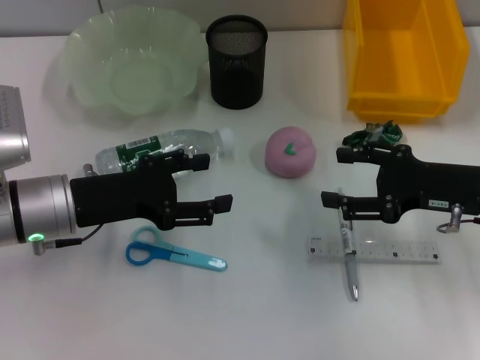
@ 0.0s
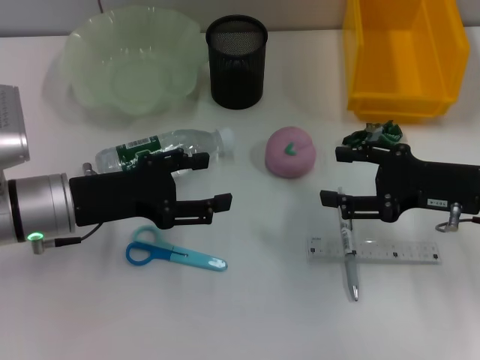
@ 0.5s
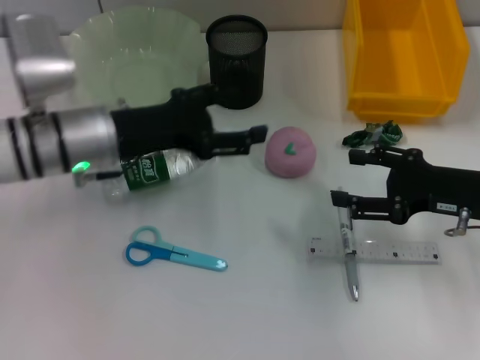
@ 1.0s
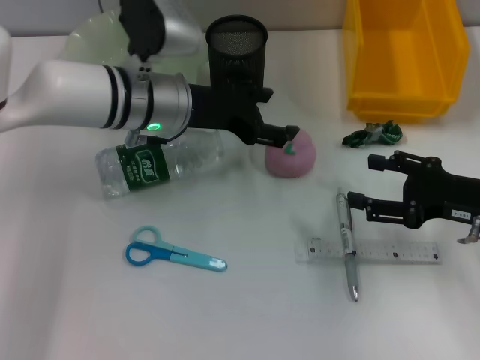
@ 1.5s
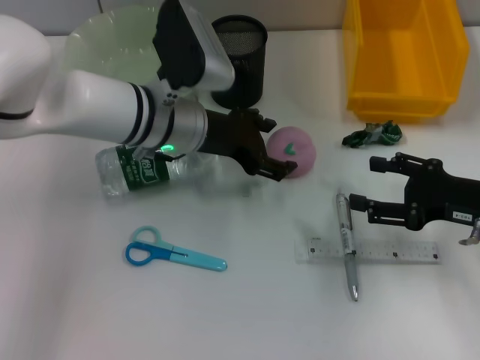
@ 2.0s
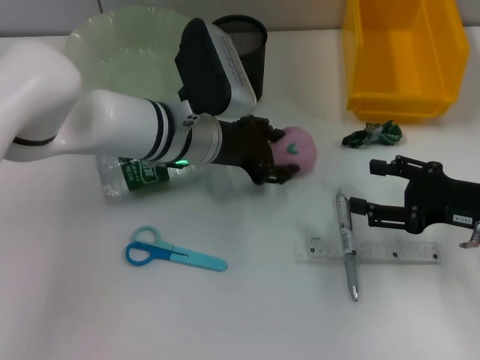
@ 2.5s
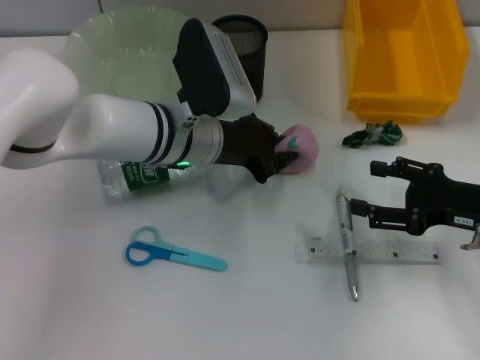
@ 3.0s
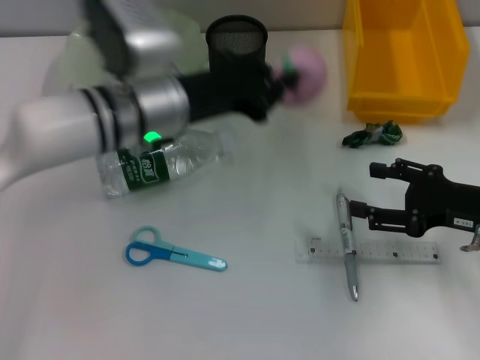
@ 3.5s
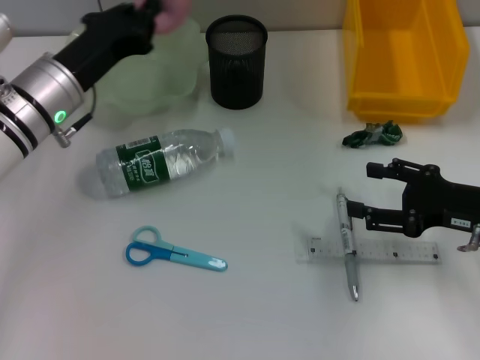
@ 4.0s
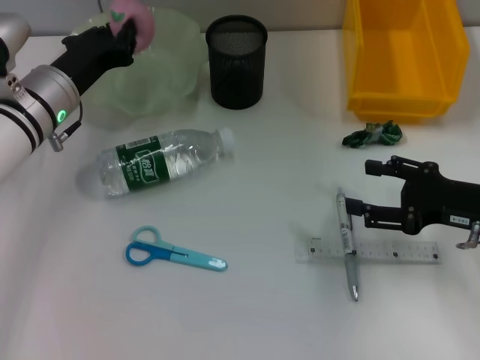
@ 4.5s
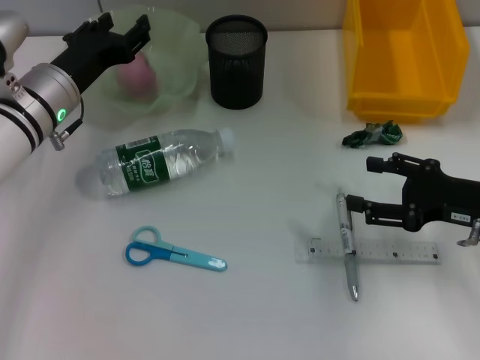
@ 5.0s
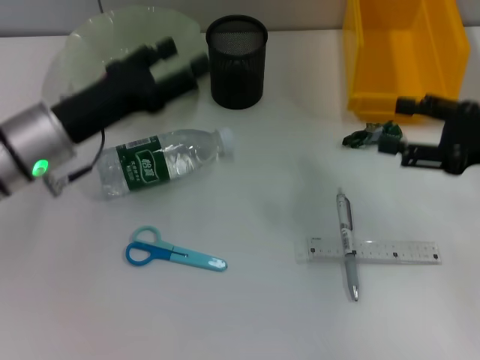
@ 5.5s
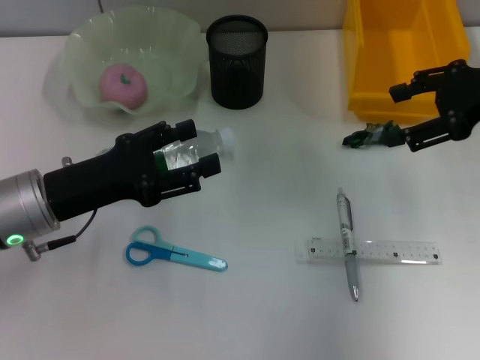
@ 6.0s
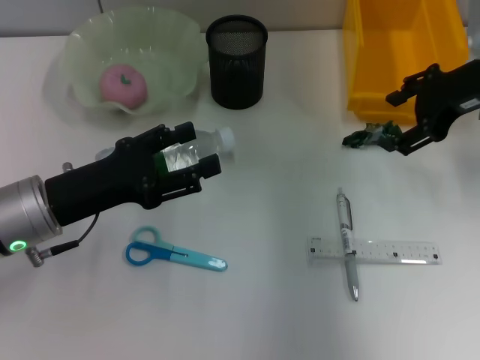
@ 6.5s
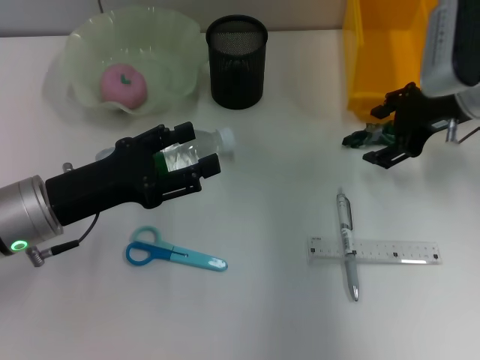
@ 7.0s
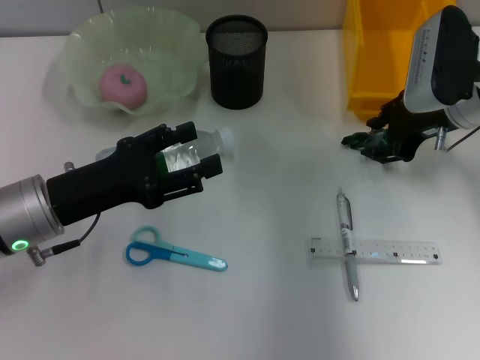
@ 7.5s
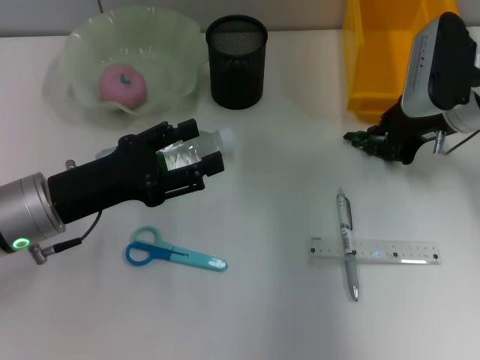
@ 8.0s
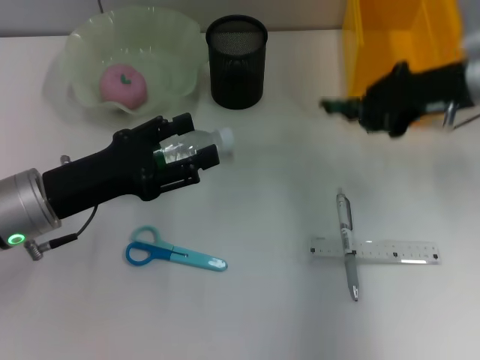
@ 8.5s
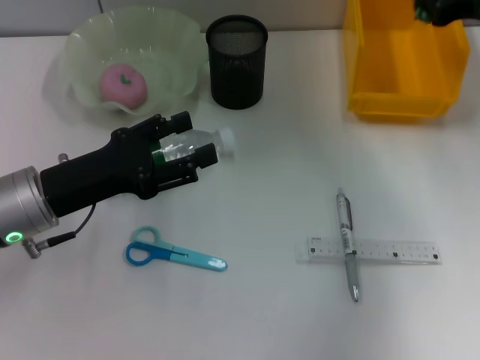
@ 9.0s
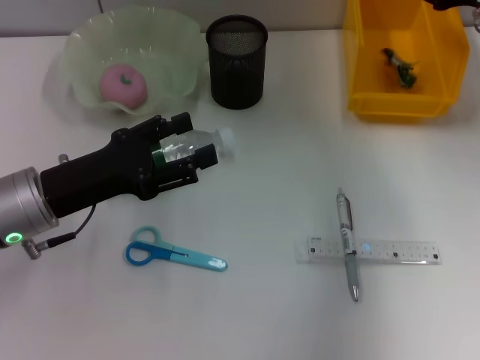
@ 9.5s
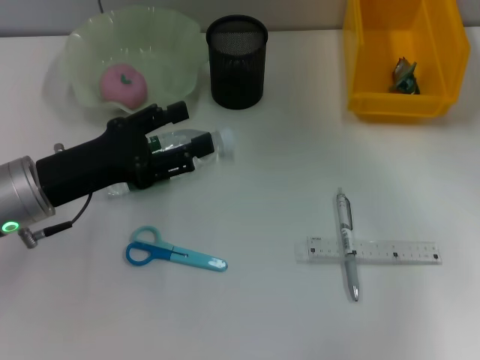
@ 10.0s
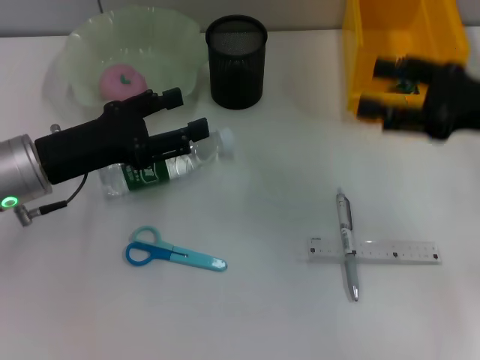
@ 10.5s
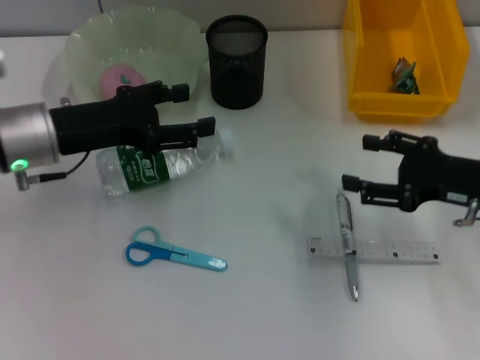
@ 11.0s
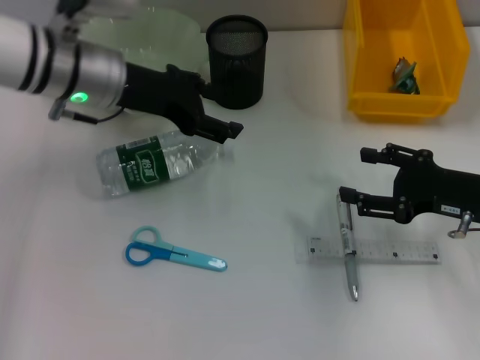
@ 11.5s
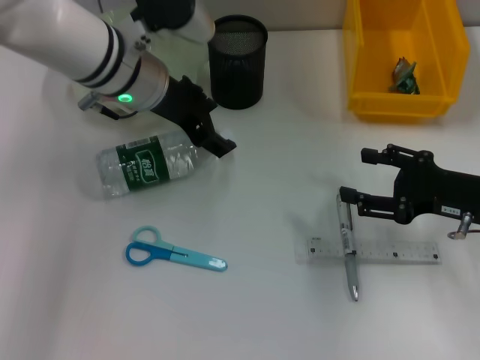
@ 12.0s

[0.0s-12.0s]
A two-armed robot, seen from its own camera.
Step, 0.0s to 3.0s: Grab the peach with the left hand.
Step, 3.5s to 5.0s: Place the peach into the fruit bowl with the left hand.
Step, 5.5s to 8.0s: Grab the plastic with the right hand.
Step, 8.5s to 9.0s: Place the plastic into the trash can with the right hand.
0.0s to 2.0s: The left gripper heads to the right and forward, covering about 15 cm.
2.0s to 4.0s: The left gripper travels to the left by approximately 10 cm, and closes its fingers.
4.0s to 6.0s: The right gripper goes roughly 15 cm upward and forward. Meanwhile the left gripper shifts approximately 10 cm backward, and opens its fingers.
6.0s to 8.0s: The right gripper shifts some 10 cm downward and to the left, and closes.
8.0s to 10.0s: The right gripper is displaced upward and to the right by approximately 10 cm, and opens up.
10.0s to 12.0s: The right gripper is displaced downward and backward by about 15 cm. The left gripper travels forward, to the right and upward by roughly 20 cm.

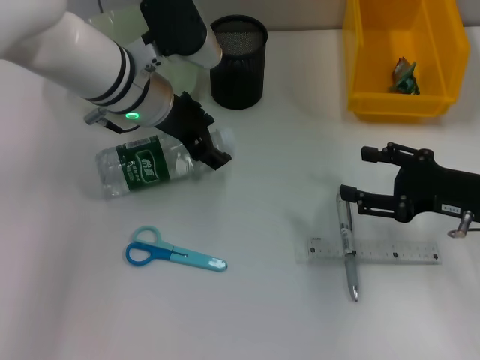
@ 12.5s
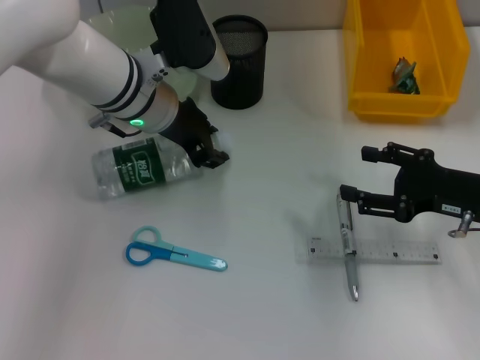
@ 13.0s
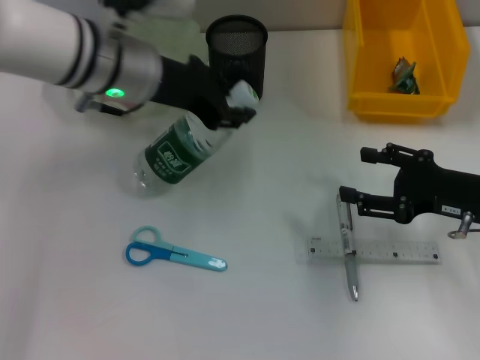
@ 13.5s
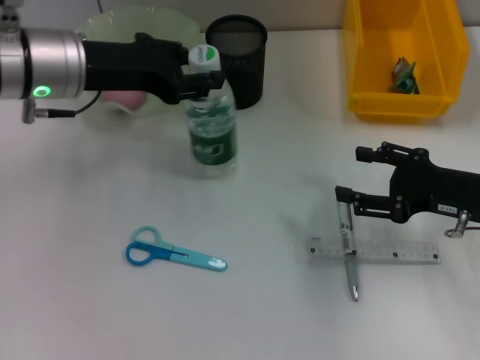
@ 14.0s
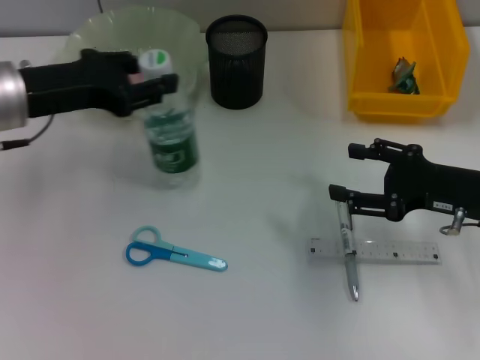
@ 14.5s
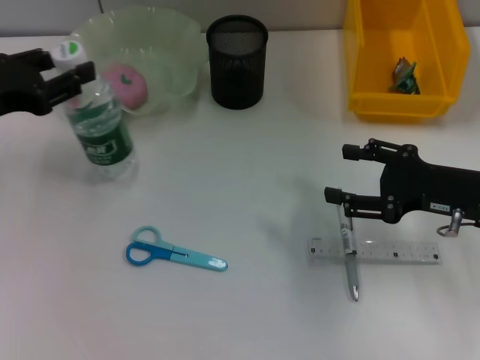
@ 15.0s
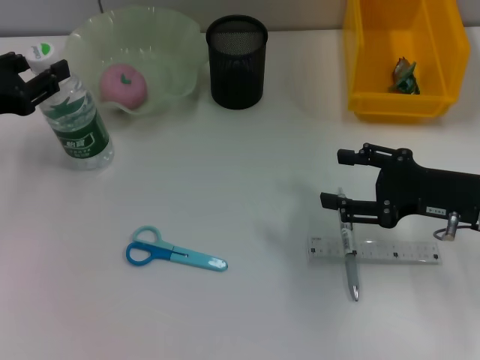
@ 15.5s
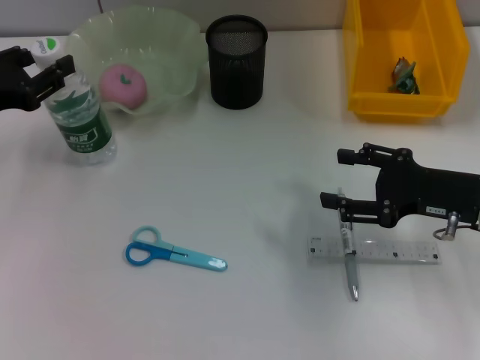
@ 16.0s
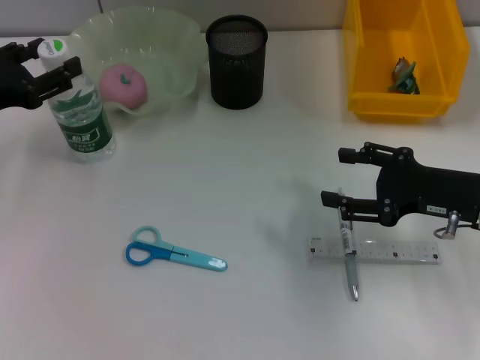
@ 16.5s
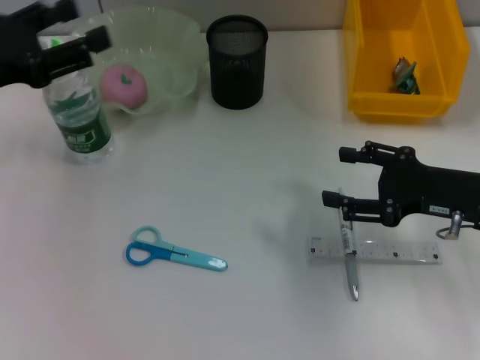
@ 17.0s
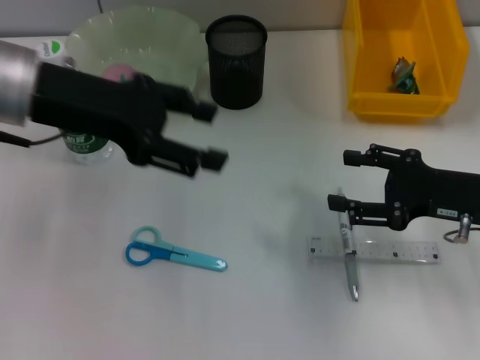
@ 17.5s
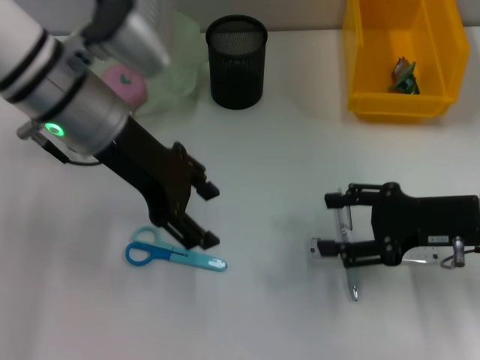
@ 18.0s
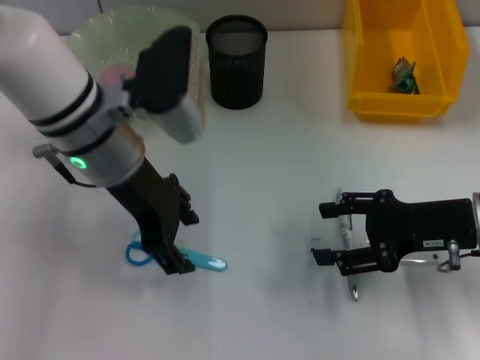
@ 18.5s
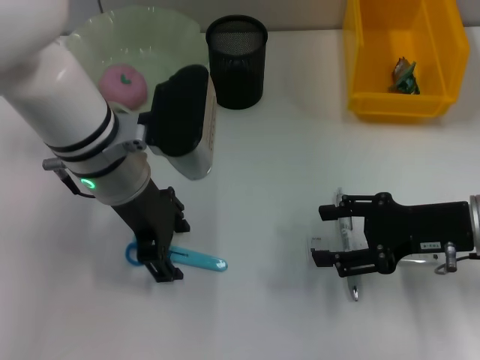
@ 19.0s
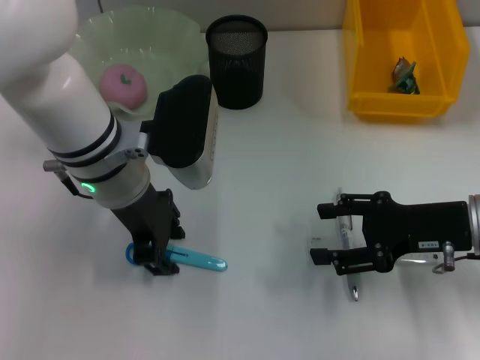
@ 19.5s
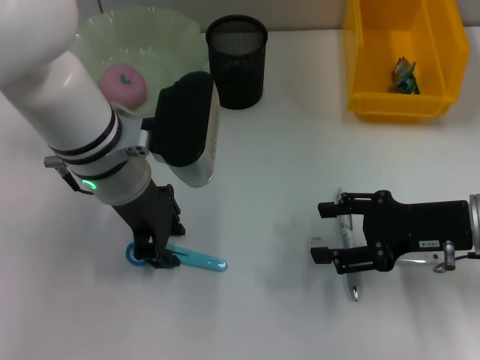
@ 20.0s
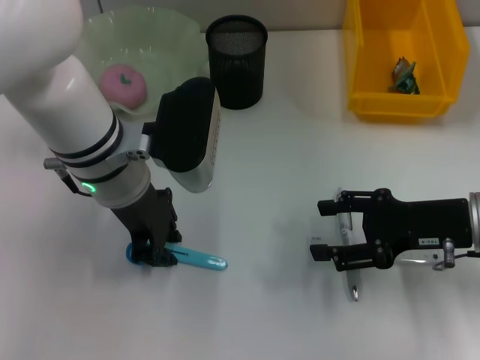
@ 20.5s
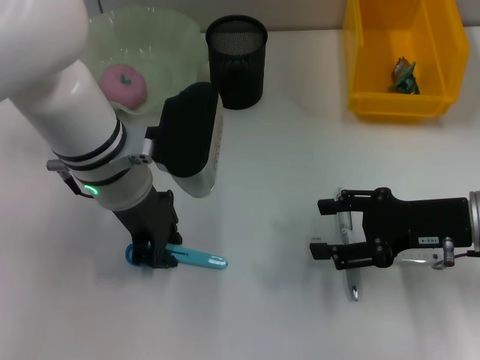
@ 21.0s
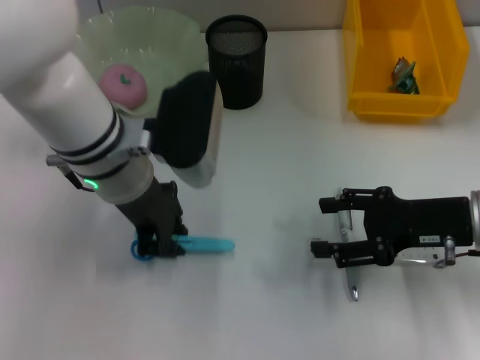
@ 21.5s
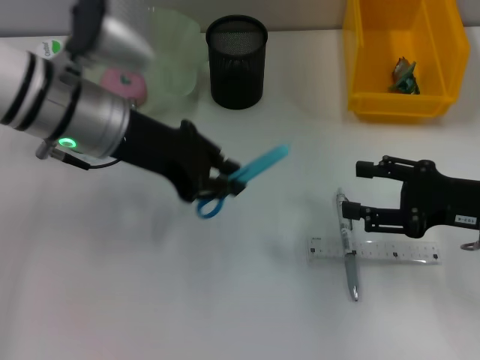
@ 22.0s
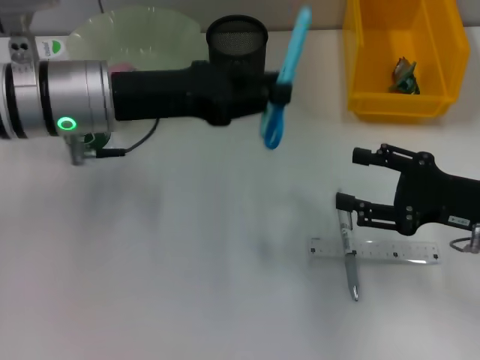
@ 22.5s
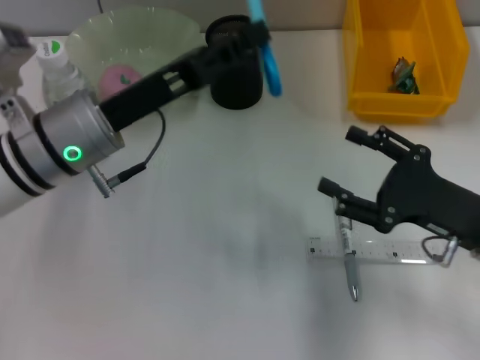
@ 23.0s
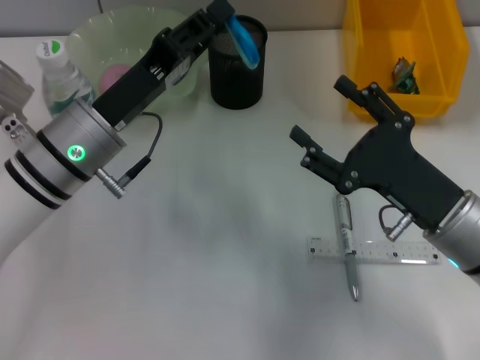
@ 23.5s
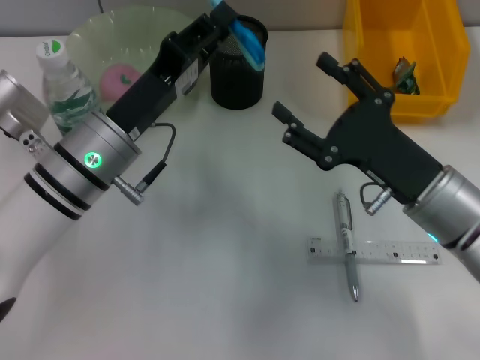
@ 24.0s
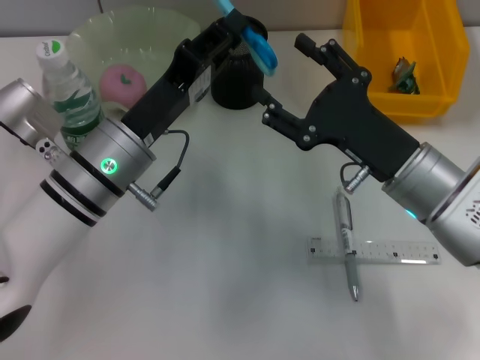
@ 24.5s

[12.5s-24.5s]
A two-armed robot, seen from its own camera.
Step, 13.5s to 14.5s: Place the water bottle on the table with the left hand.
Step, 15.0s to 21.0s: Grab the blue scissors with the left hand.
12.5s to 14.5s: The left gripper travels to the left and backward by roughly 15 cm, and closes up.
14.5s to 16.5s: The left gripper shifts approximately 5 cm to the left.
16.5s to 18.5s: The left gripper heads to the right, covering about 20 cm.
18.5s to 20.5s: The left gripper closes up.
20.5s to 22.5s: The left gripper moves about 5 cm.
22.5s to 24.5s: The left gripper heads downward, covering roughly 10 cm. The right gripper shifts approximately 10 cm to the left.

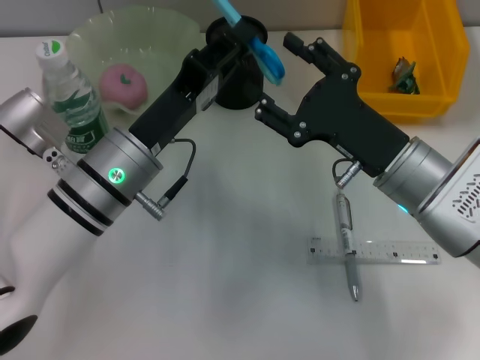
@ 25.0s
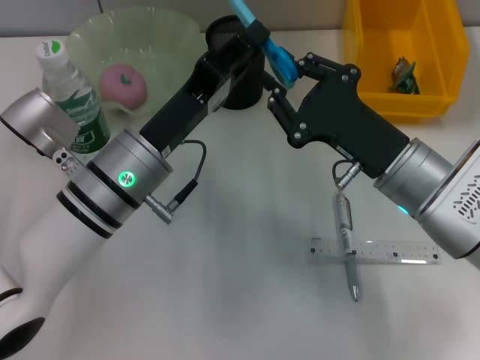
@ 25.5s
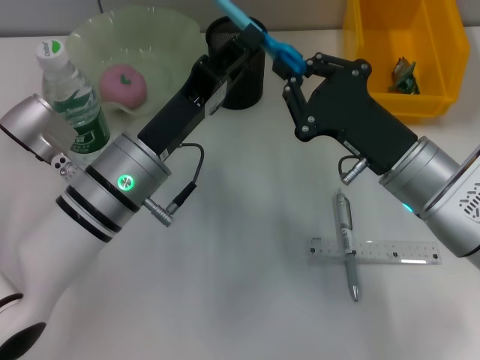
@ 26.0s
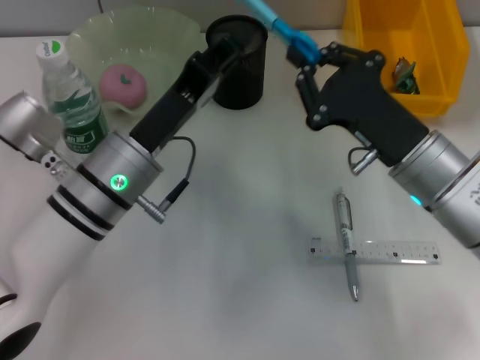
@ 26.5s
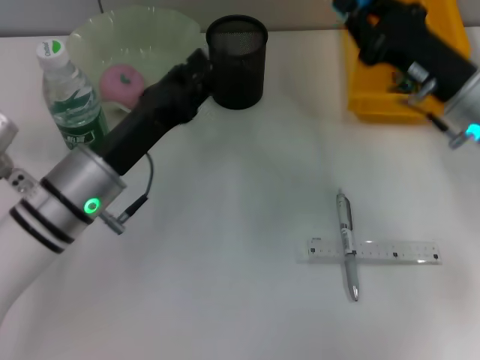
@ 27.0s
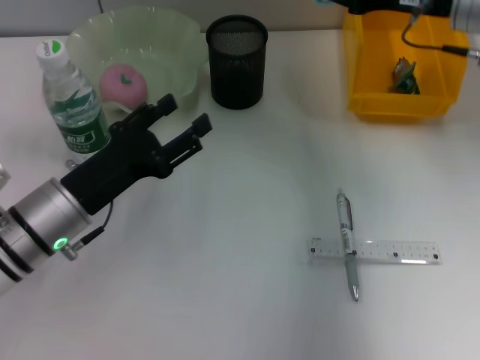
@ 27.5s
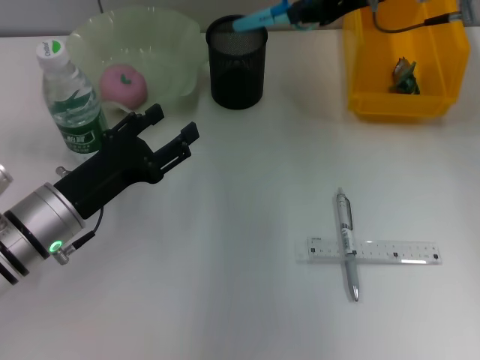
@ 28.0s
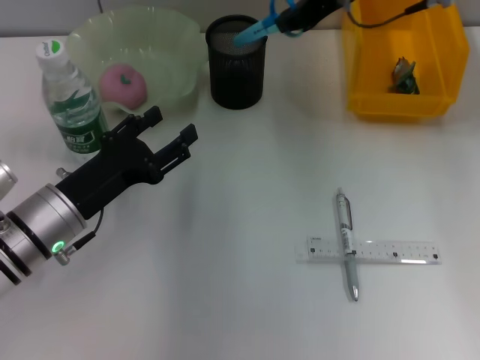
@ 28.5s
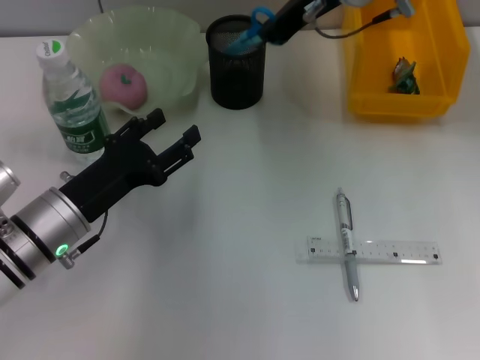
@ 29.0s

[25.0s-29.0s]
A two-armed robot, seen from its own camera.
25.0s to 27.0s: The right gripper travels to the right and forward by about 10 cm, and closes.
27.0s to 29.0s: The right gripper travels forward, to the left and upward by some 20 cm. Meanwhile the left gripper ends up about 5 cm from where it was, and opens up.
